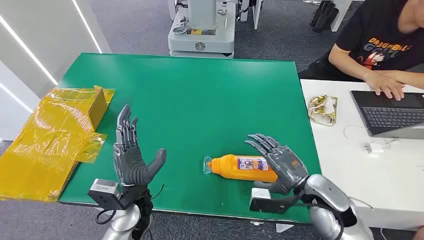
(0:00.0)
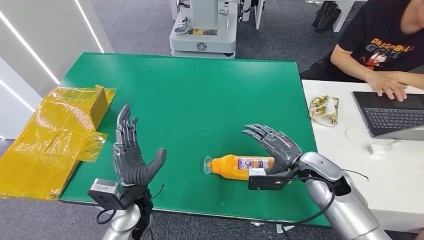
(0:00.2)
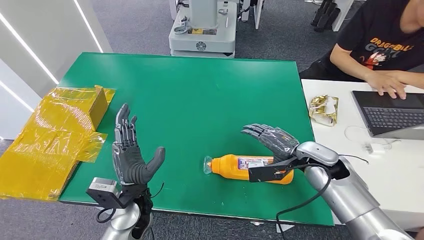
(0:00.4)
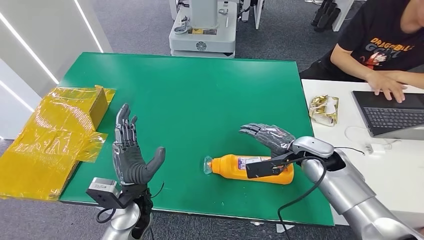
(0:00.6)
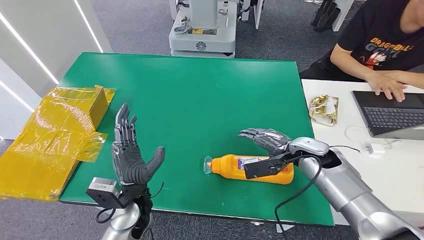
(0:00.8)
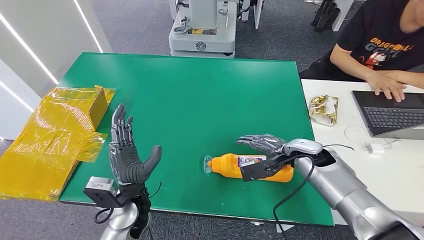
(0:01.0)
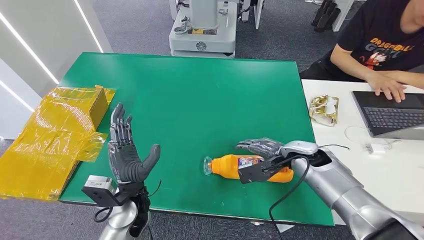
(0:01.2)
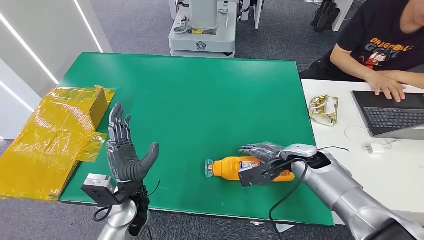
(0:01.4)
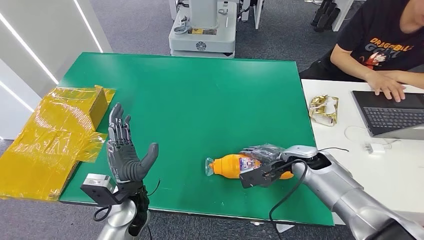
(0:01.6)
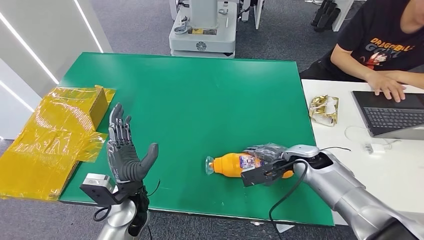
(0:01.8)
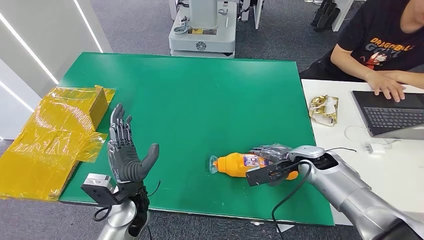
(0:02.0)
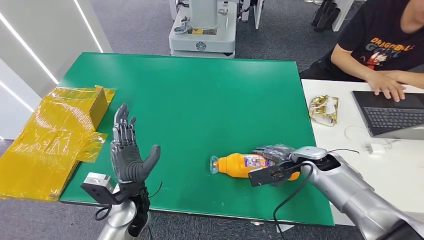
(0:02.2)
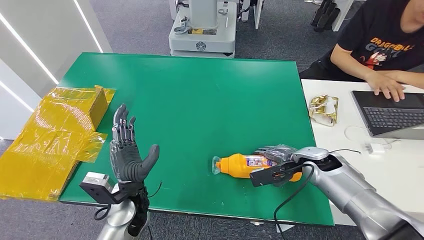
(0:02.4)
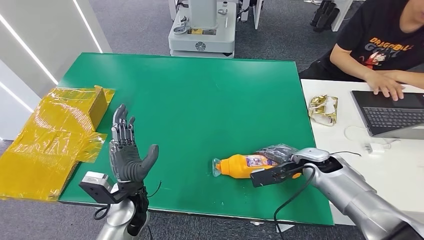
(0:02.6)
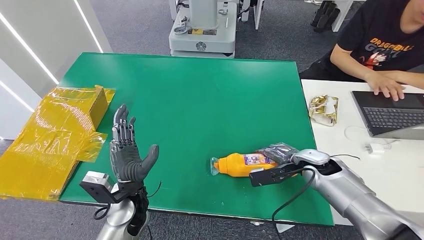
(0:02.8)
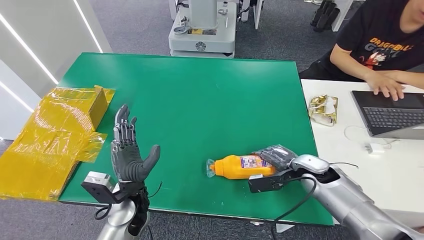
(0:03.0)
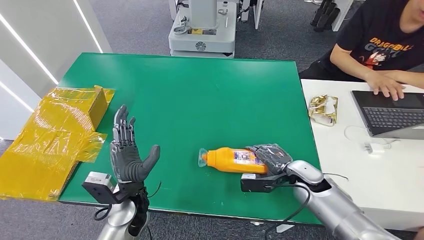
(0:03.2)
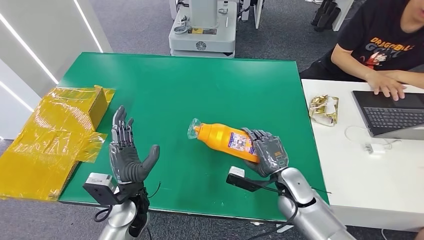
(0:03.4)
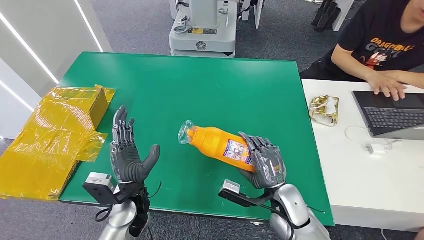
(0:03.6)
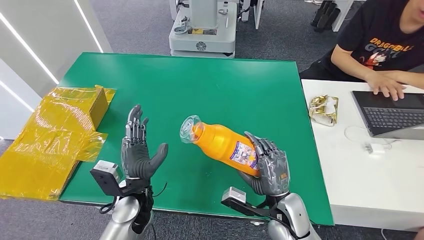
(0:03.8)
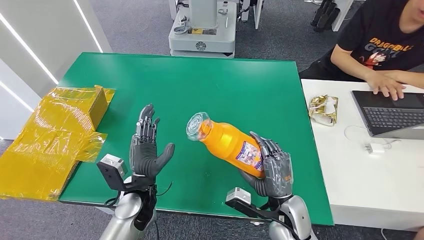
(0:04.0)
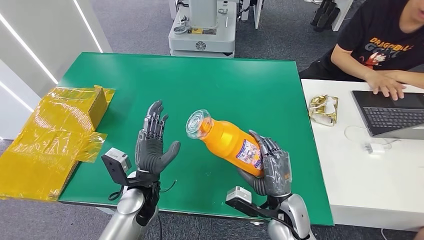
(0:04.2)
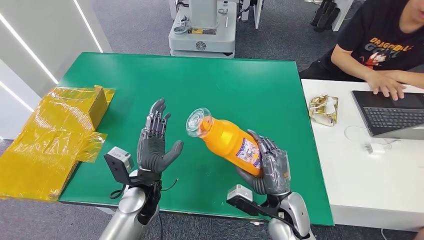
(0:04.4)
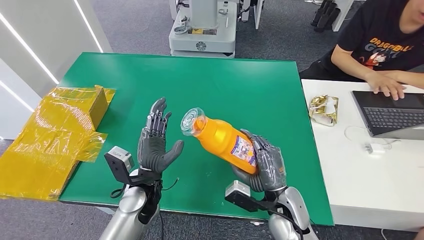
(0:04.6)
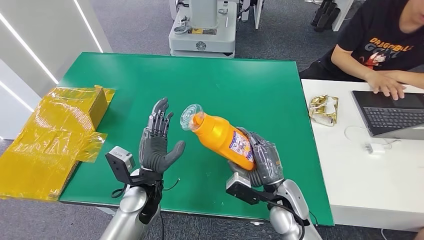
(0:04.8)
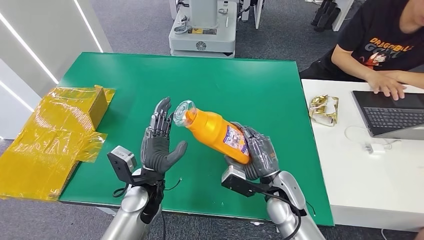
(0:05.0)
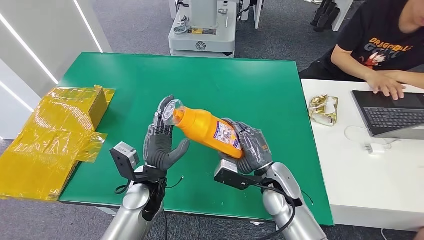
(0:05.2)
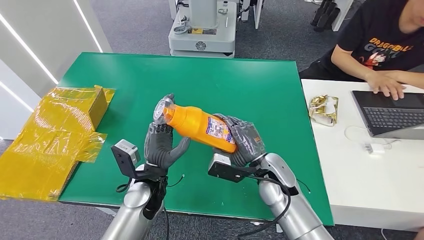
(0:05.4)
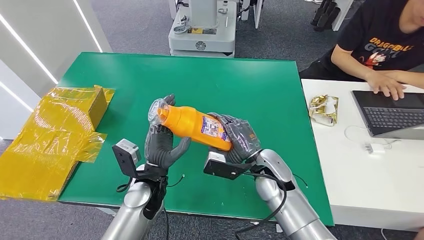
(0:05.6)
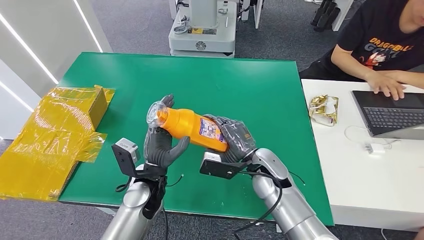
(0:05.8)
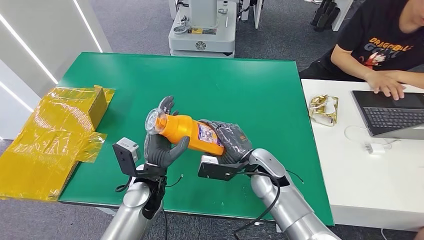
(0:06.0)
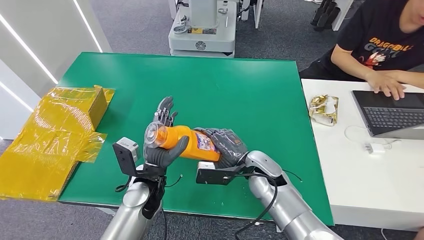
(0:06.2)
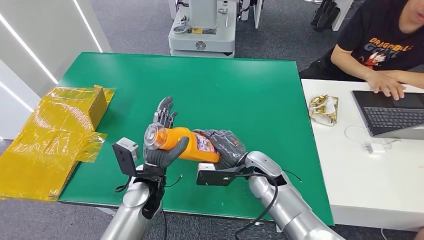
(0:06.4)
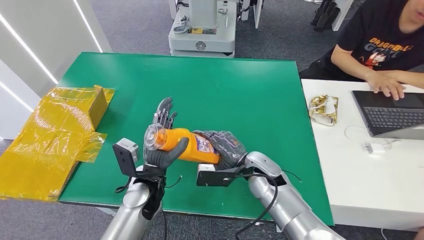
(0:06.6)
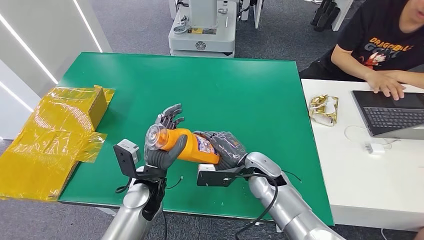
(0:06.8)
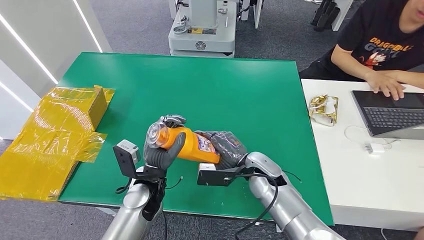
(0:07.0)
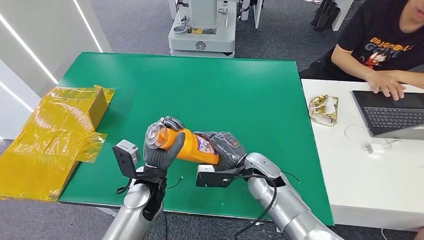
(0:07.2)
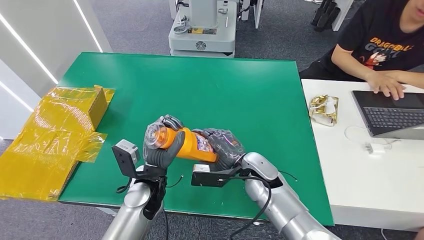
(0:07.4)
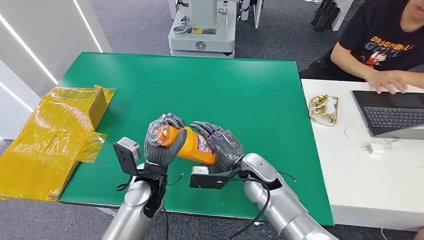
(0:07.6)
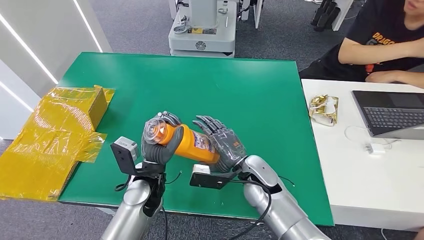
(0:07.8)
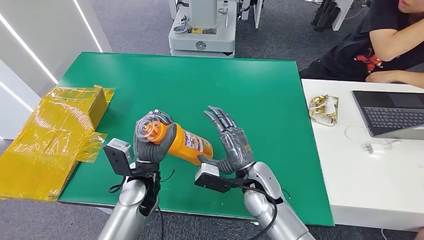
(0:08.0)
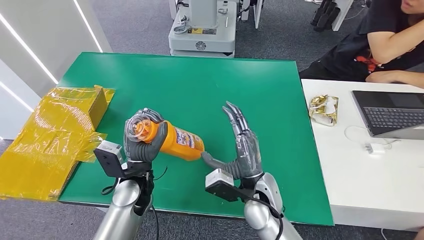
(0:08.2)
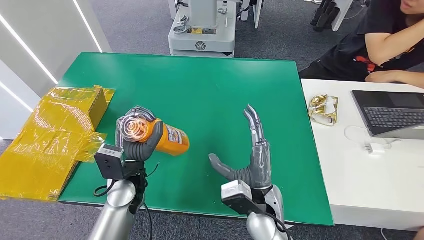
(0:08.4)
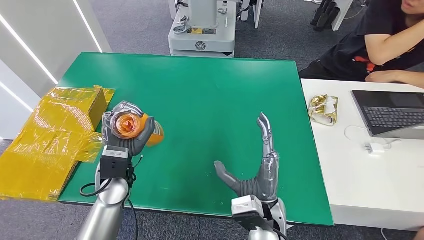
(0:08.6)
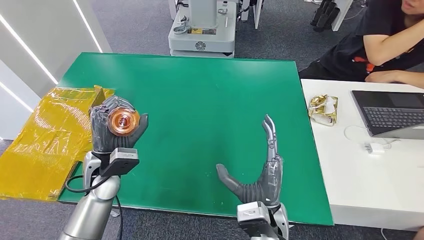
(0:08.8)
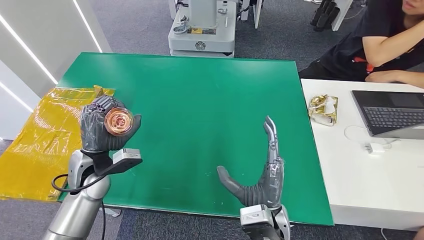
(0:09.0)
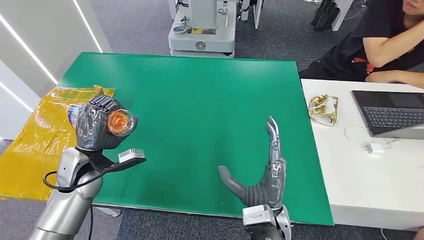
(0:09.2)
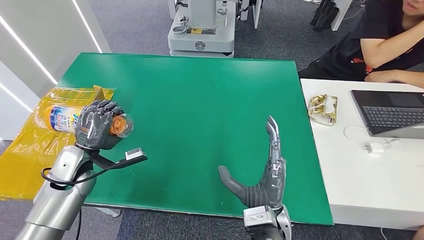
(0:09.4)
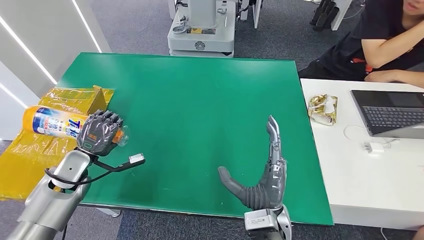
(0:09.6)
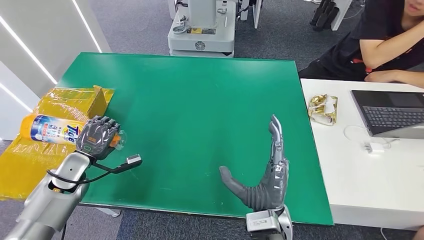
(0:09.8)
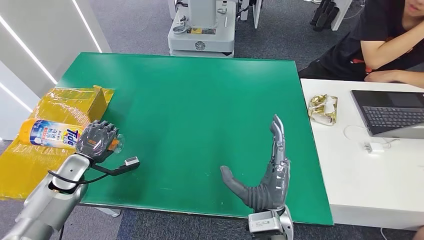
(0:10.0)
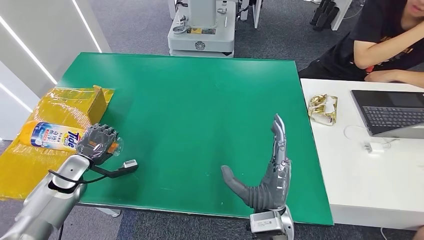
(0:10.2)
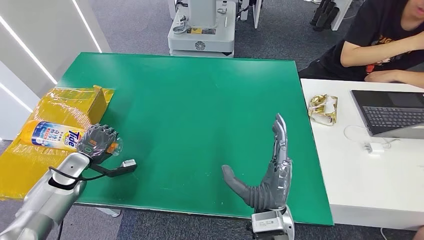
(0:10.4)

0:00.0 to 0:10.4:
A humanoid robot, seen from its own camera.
Step, 0:00.0 to 0:06.2: Pick up the bottle from the table.
0:01.4 to 0:03.0: The hands make only small movements.
0:03.0 to 0:04.4: The right hand goes about 15 cm backward and to the left.
0:04.4 to 0:06.0: The right hand goes approximately 10 cm forward and to the left.
0:06.0 to 0:07.4: The hands stay close to where they were, moving slightly.
0:09.0 to 0:10.4: The left hand travels to the left and downward by approximately 15 cm.

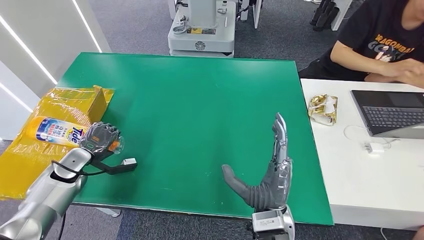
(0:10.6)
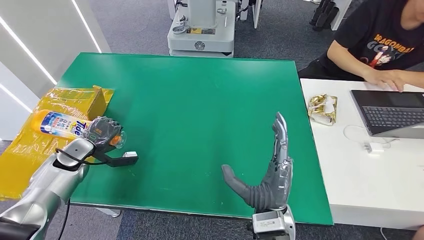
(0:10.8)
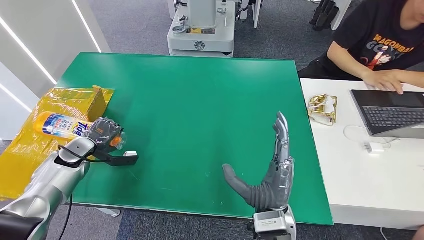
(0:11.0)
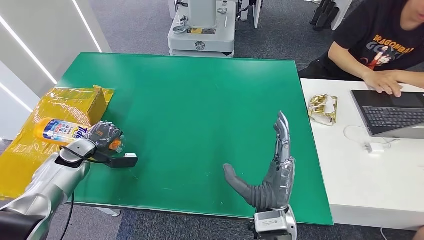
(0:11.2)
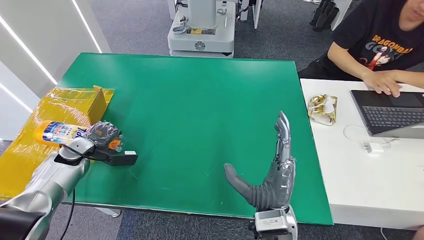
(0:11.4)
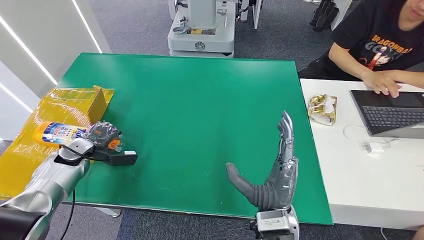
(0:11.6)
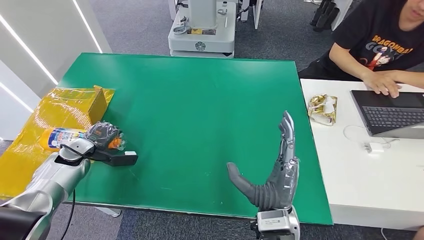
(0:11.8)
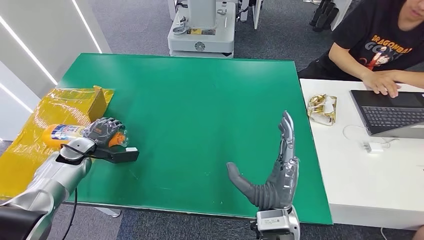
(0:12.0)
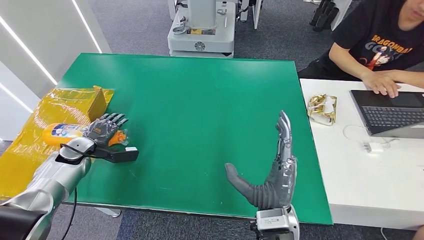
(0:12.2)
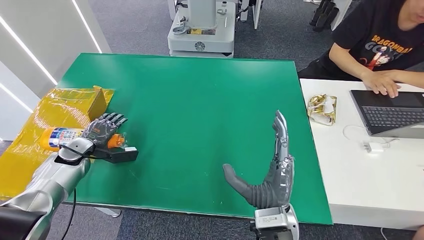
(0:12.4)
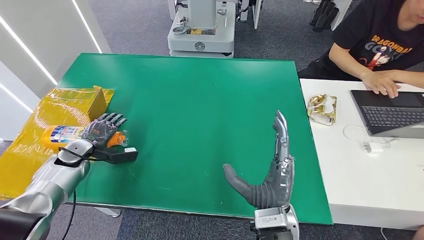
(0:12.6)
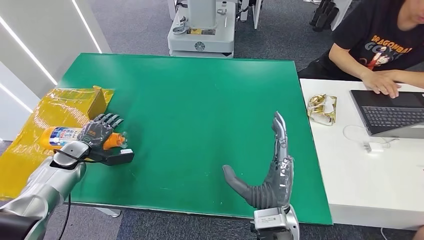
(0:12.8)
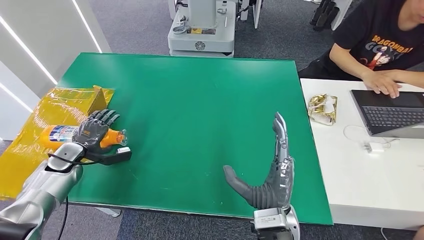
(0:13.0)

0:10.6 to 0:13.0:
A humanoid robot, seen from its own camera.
Step, 0:10.6 to 0:13.0: Turn the bottle to the front side.
0:10.6 to 0:13.0: The hands stay close to where they were, moving slightly.
